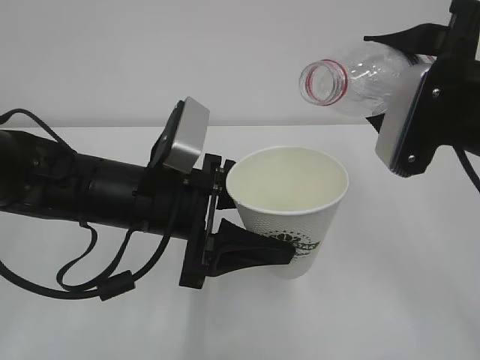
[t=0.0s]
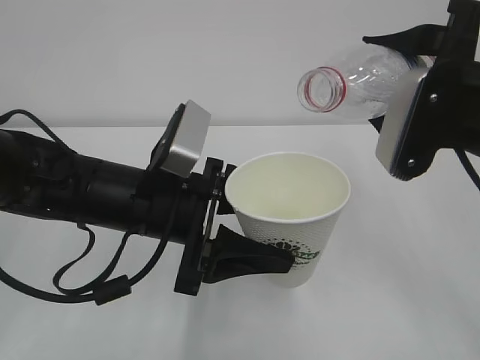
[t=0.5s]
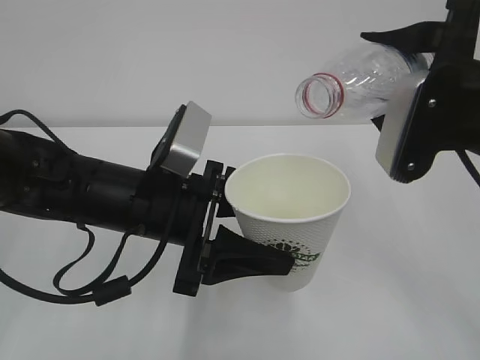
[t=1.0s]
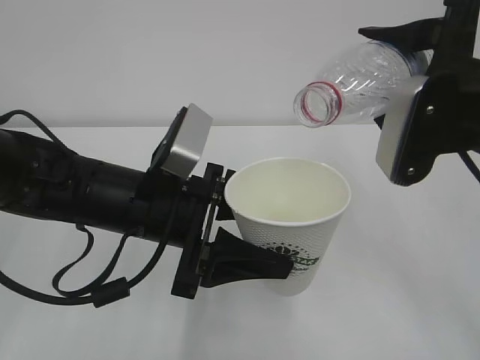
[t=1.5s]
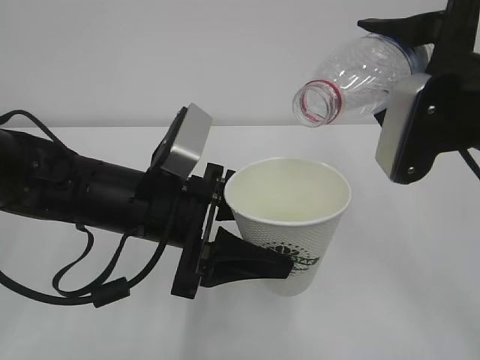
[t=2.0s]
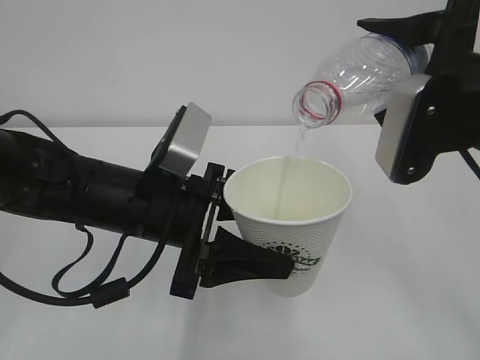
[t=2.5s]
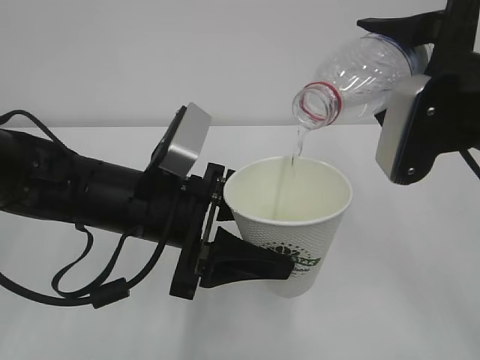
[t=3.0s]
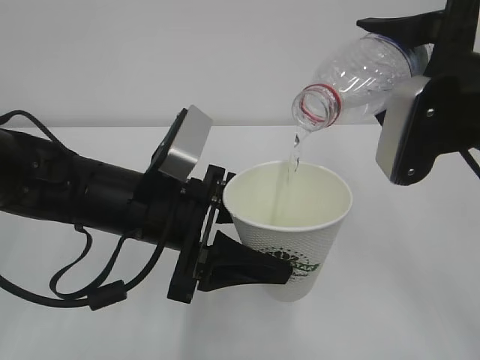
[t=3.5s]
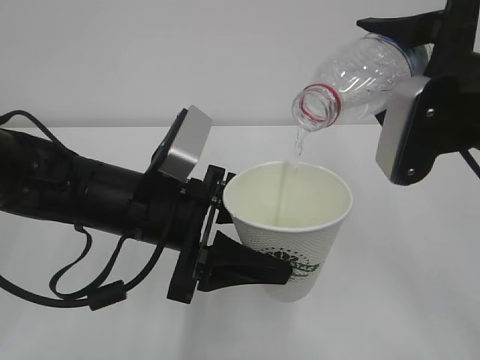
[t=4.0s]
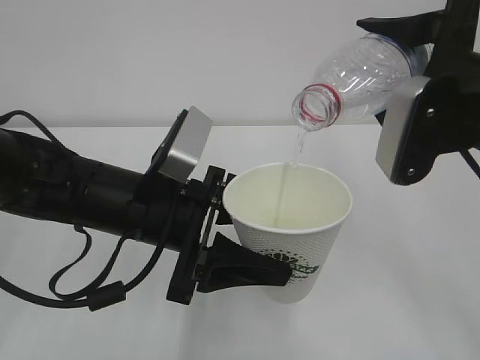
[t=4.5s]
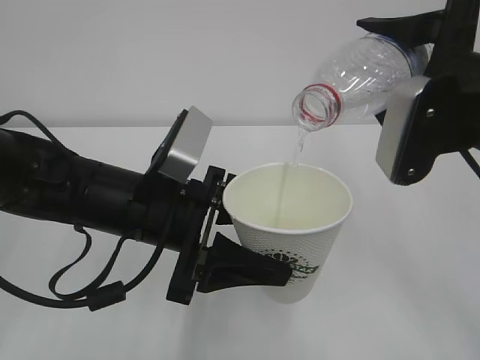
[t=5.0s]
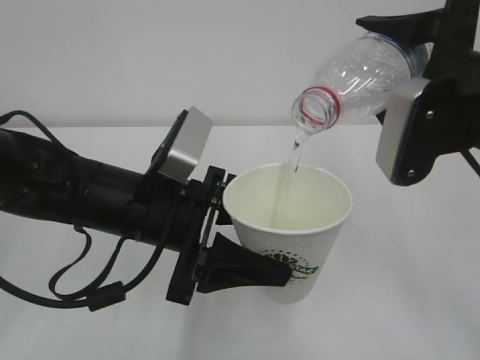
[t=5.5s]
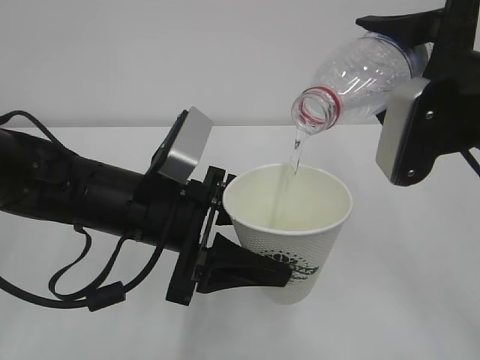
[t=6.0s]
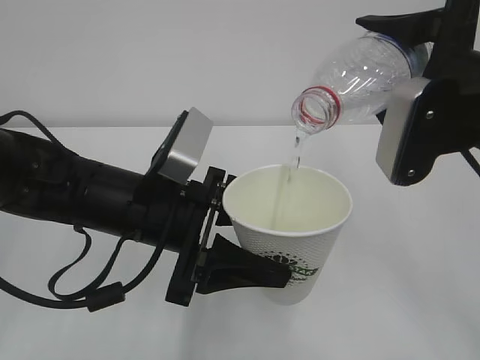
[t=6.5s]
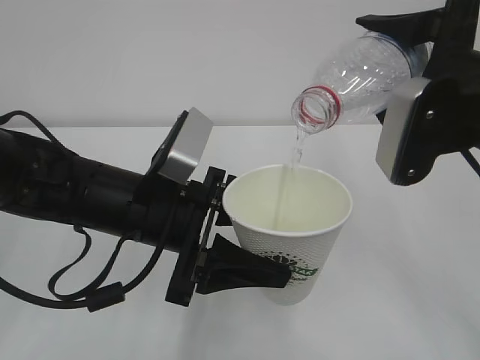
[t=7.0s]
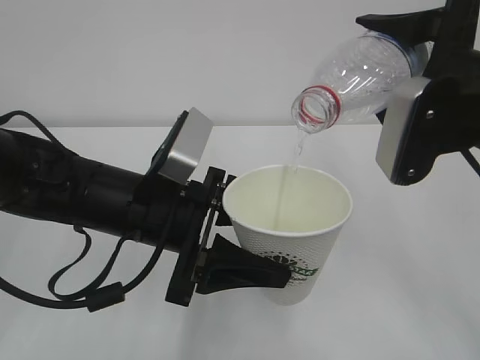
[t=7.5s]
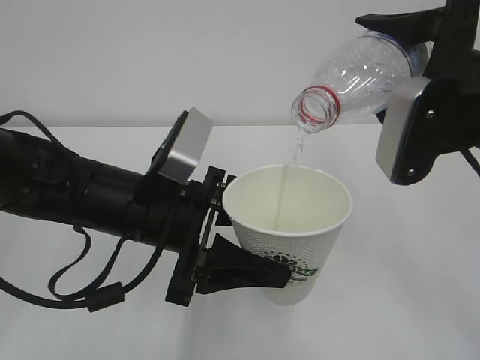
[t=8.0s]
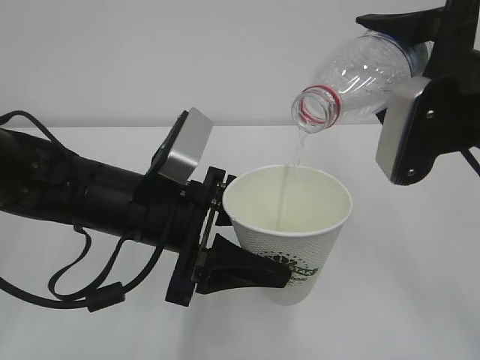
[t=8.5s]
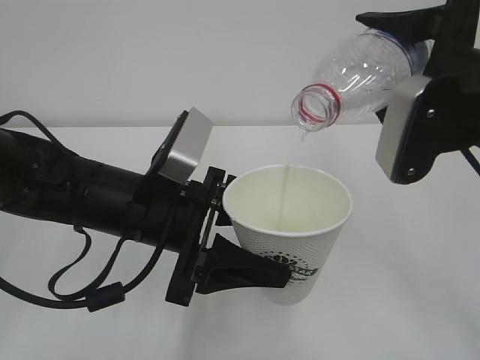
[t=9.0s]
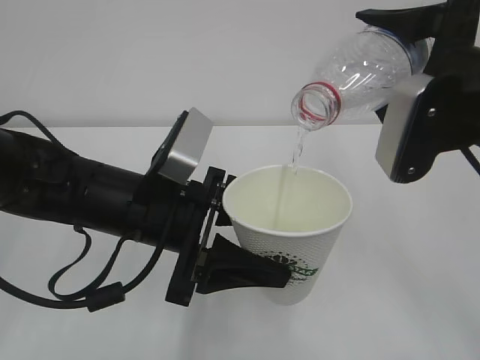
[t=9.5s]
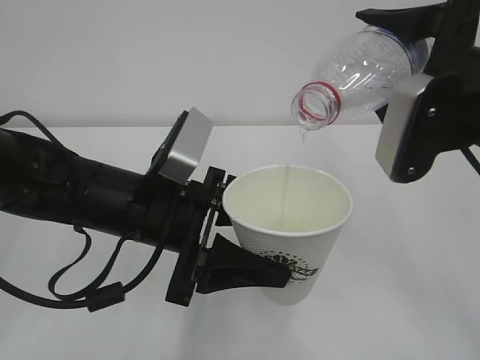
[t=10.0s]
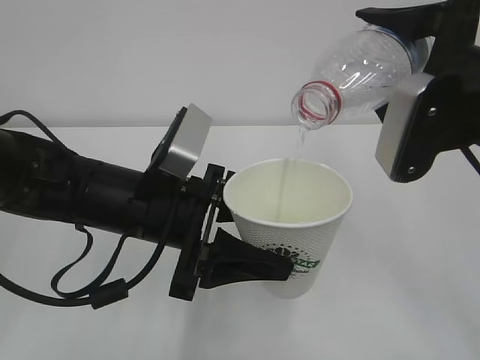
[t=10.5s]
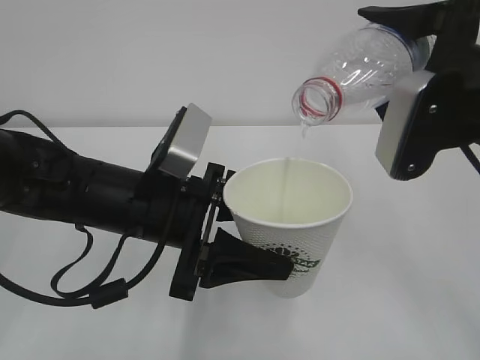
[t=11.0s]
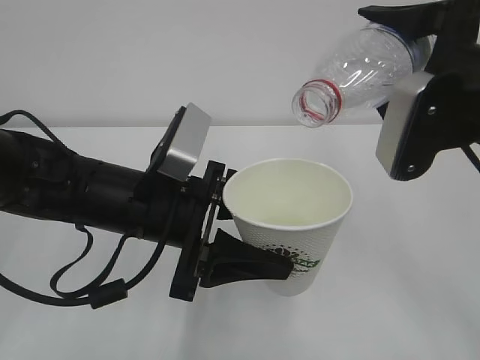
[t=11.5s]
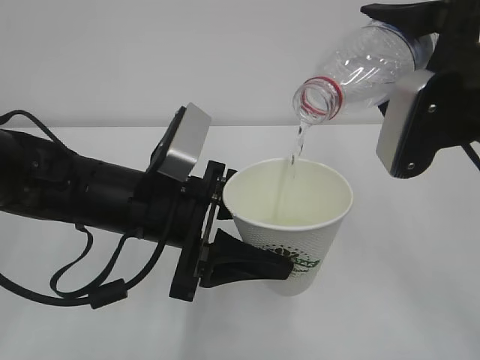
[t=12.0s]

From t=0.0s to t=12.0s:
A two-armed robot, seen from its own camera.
From t=0.0s to t=2.0s: The grippers move only a little.
From t=2.0s to t=12.0s: Neither gripper changes place.

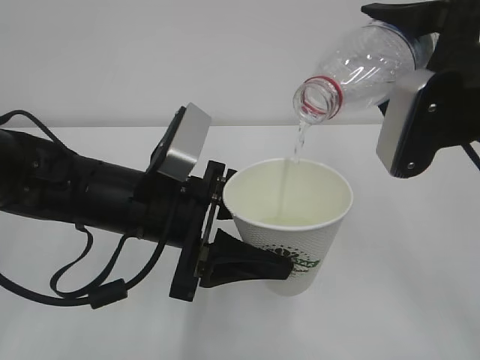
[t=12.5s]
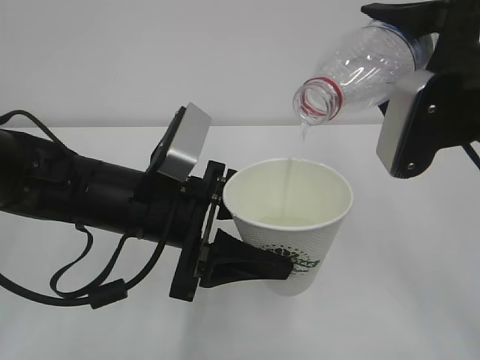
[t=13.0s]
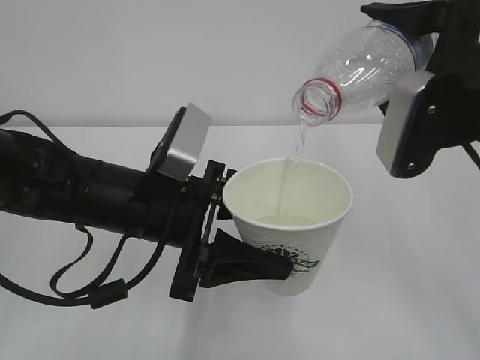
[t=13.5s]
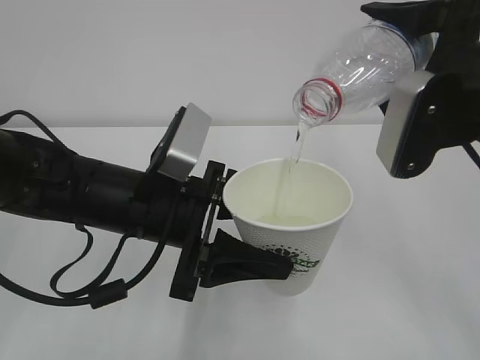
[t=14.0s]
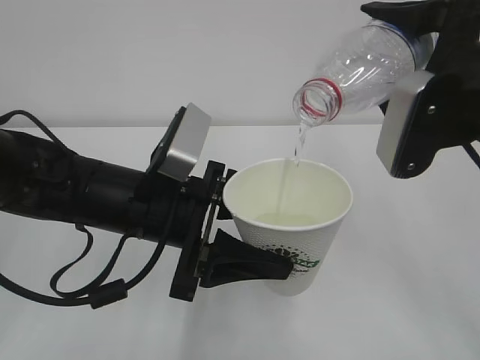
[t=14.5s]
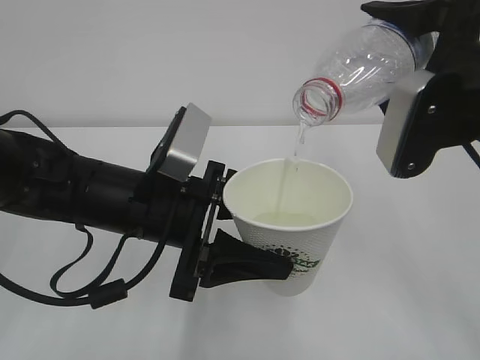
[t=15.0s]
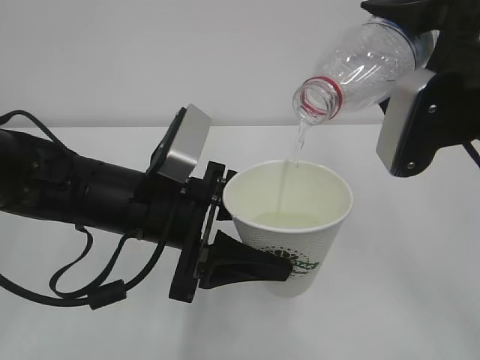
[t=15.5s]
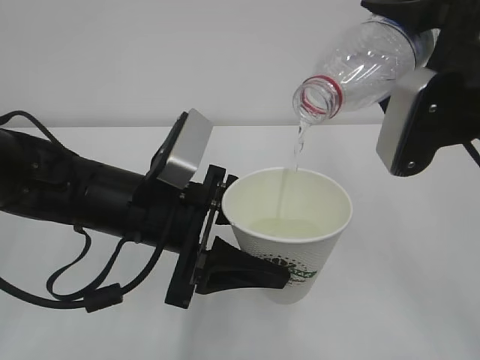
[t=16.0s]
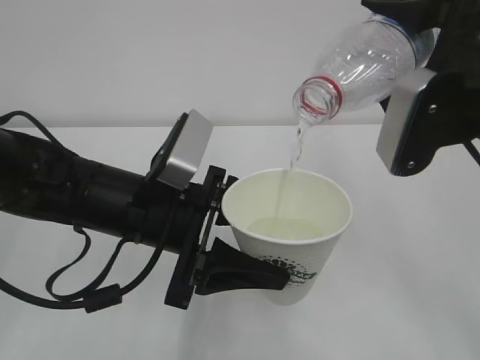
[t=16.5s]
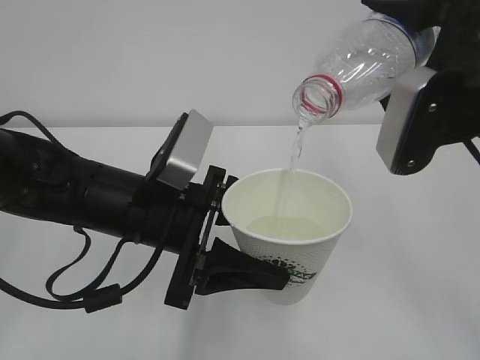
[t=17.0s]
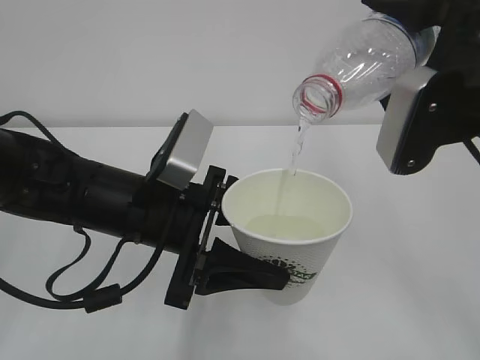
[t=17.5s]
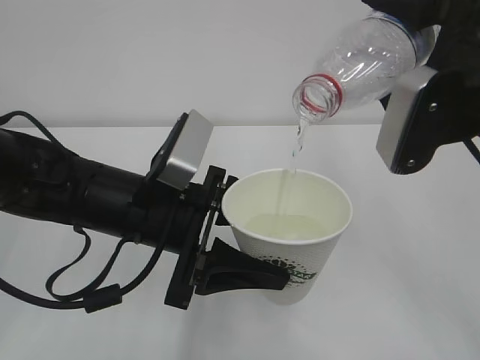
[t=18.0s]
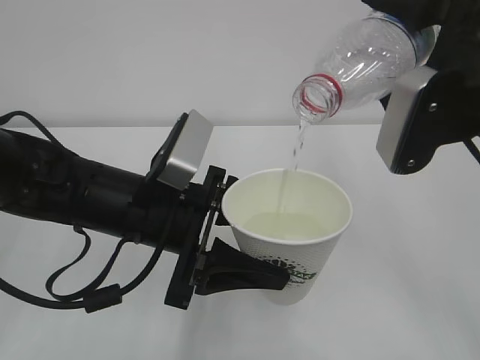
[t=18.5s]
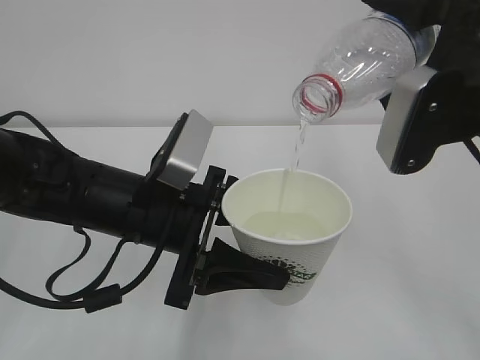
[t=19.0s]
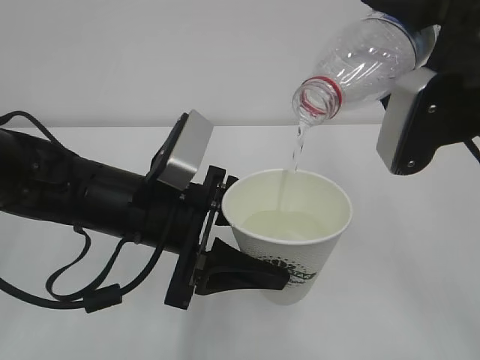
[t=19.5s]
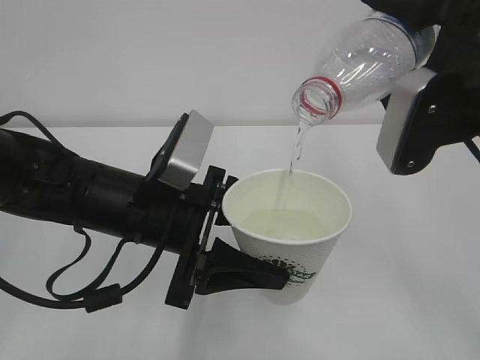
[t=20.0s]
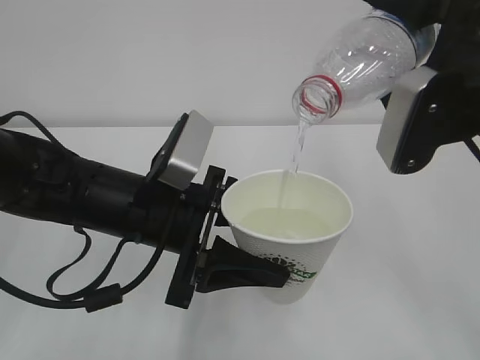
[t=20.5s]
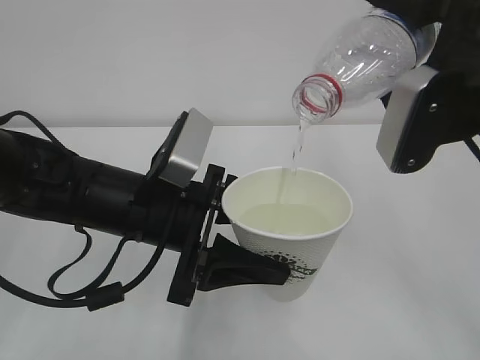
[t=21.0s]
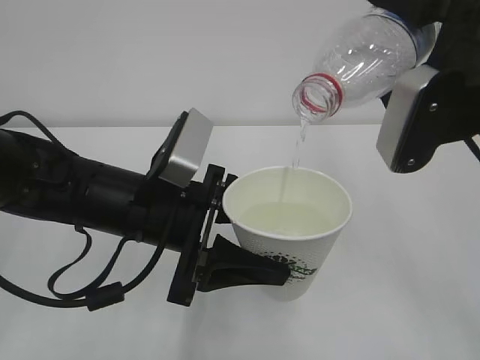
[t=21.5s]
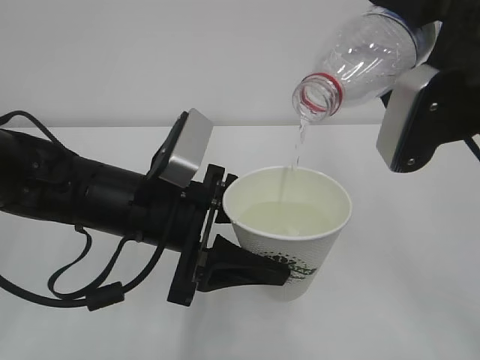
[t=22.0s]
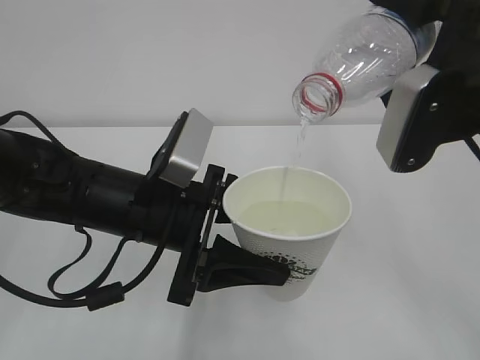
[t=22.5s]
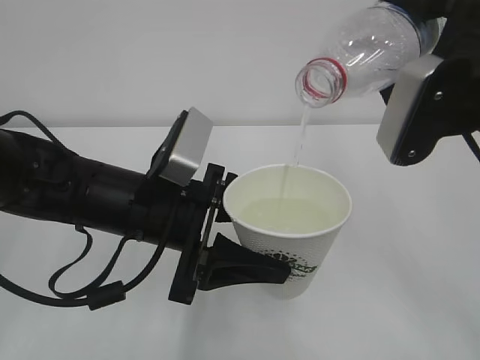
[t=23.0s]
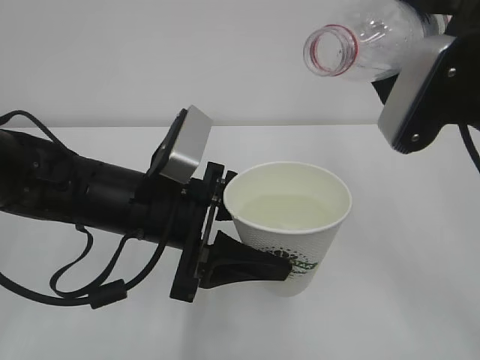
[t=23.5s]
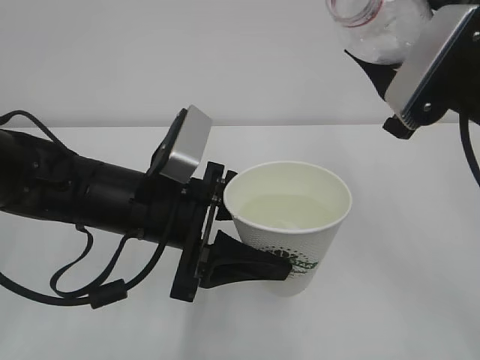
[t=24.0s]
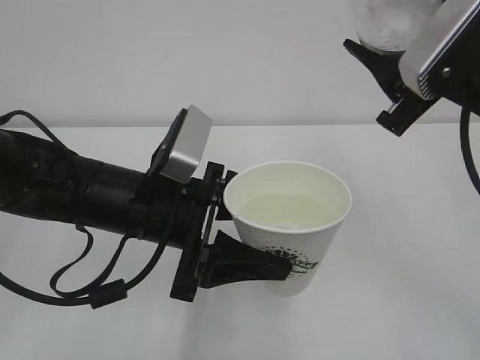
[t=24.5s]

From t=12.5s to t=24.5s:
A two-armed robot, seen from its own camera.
From t=12.5s to t=20.5s: Neither gripper changes place.
From t=20.5s to t=22.5s: Both grippers stay about where they are.

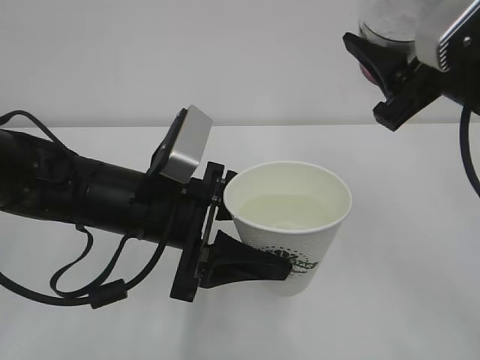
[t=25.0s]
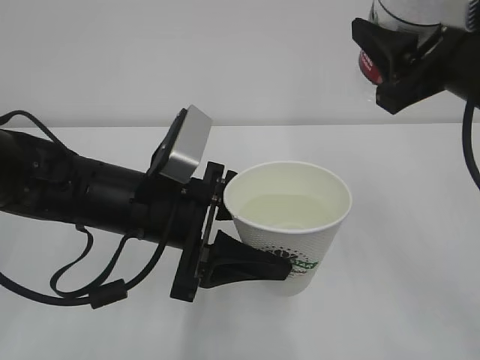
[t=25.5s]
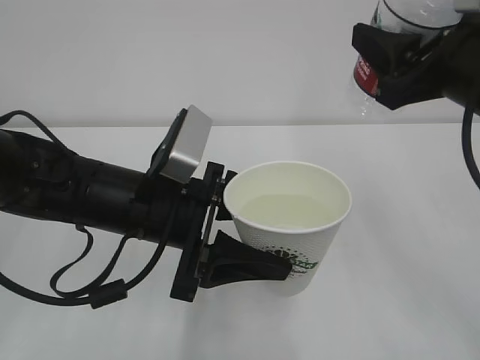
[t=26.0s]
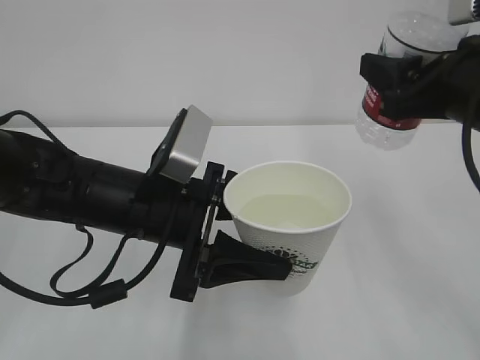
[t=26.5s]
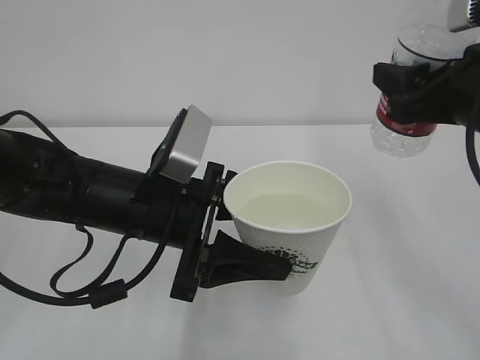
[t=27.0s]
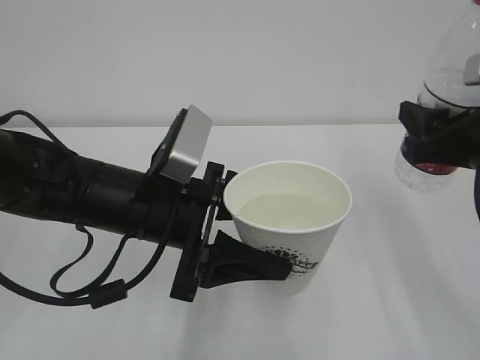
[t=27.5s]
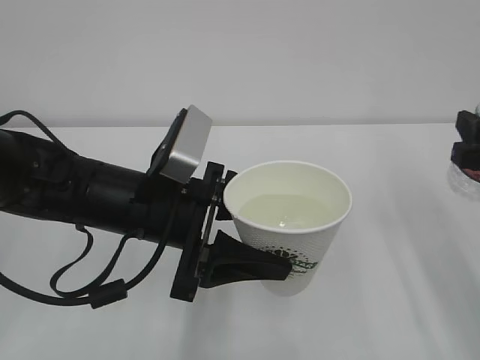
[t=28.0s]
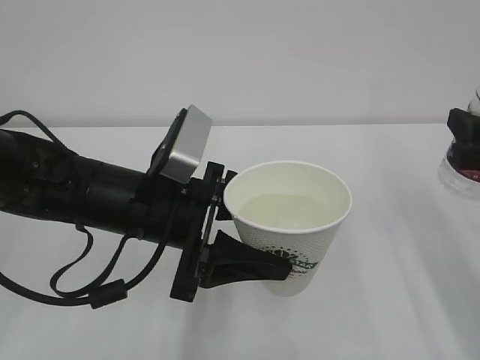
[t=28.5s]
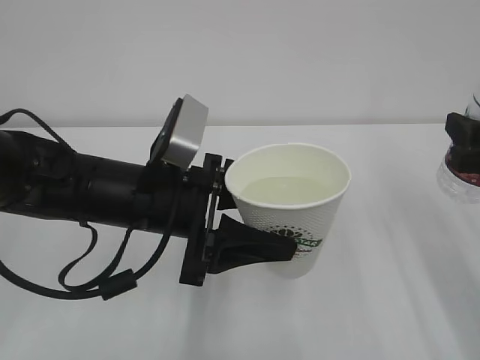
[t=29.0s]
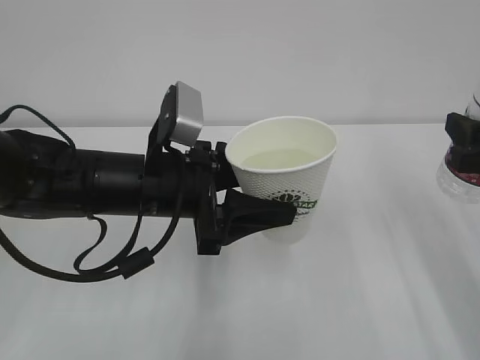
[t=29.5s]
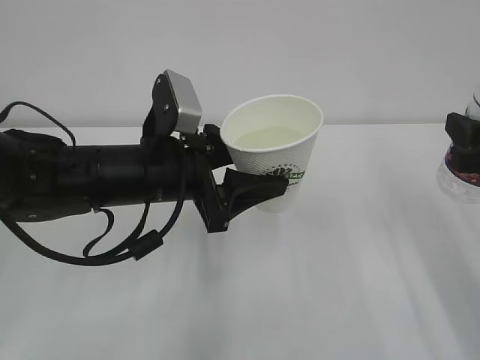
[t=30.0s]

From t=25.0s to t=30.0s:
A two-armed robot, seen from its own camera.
From t=25.0s to t=27.5s: The right gripper travels downward by approximately 5 cm.
